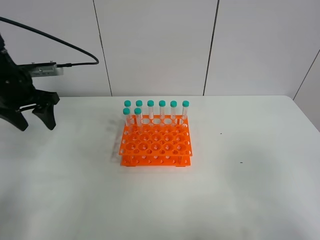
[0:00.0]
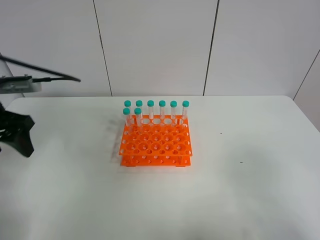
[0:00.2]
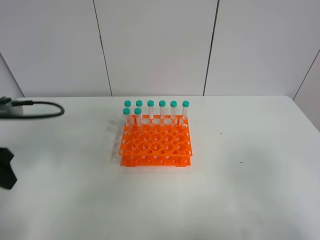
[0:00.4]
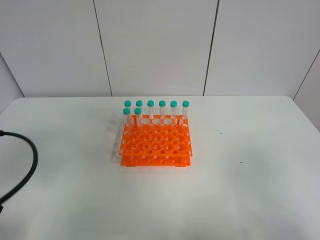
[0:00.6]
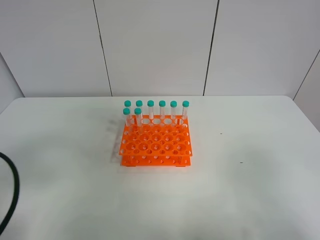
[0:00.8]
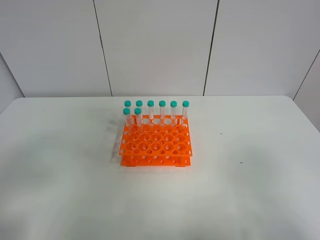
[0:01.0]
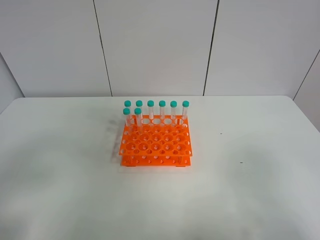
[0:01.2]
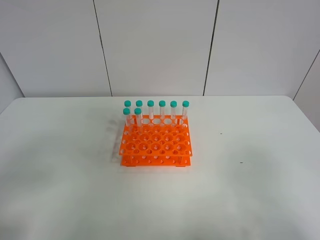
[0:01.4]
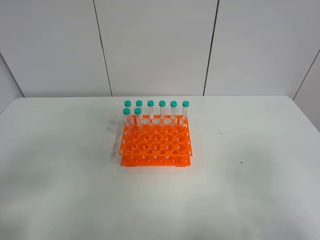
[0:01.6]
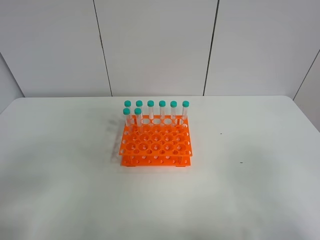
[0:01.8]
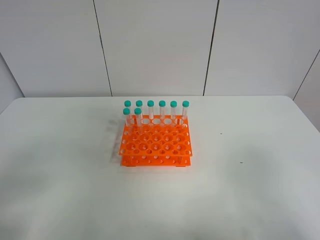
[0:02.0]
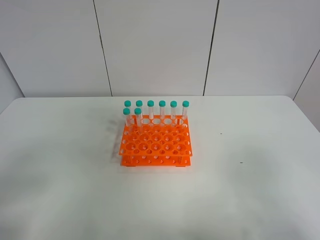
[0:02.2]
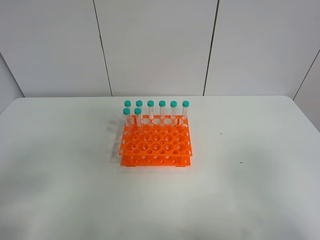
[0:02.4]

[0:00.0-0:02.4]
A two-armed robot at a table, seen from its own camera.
Task of the whole recording: Put the test tube on the table back onto the test tube rack.
0:00.0 to 0:01.2: The left gripper heads backward, covering approximately 30 cm.

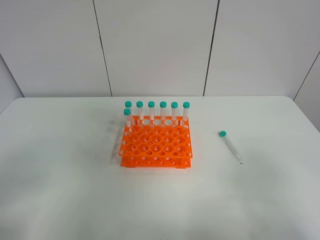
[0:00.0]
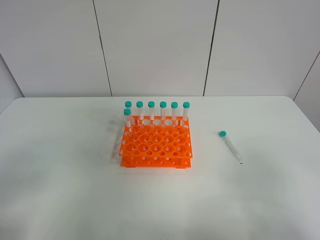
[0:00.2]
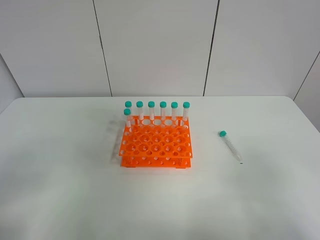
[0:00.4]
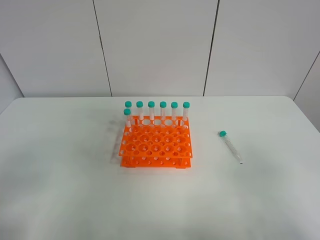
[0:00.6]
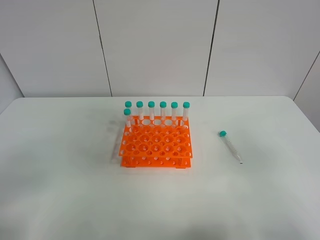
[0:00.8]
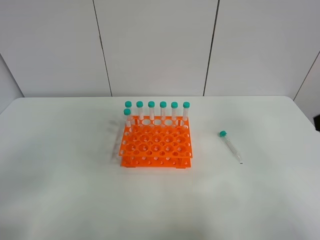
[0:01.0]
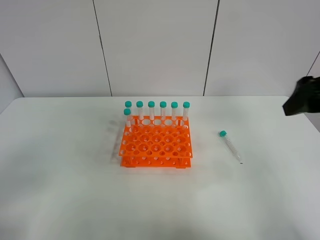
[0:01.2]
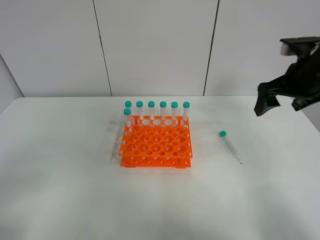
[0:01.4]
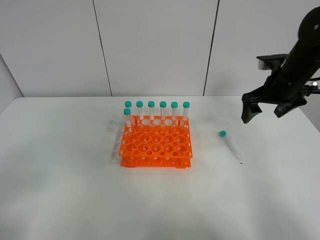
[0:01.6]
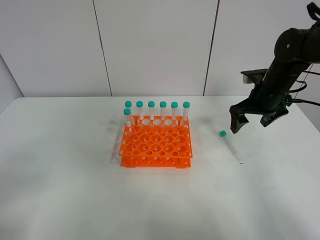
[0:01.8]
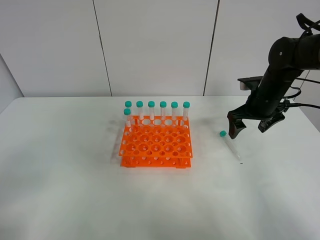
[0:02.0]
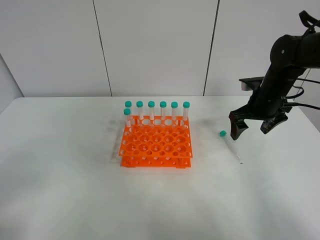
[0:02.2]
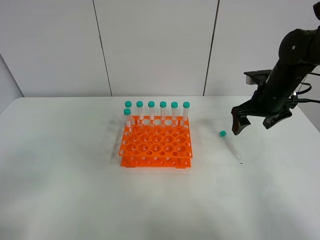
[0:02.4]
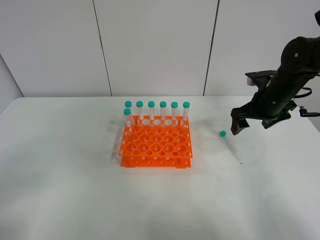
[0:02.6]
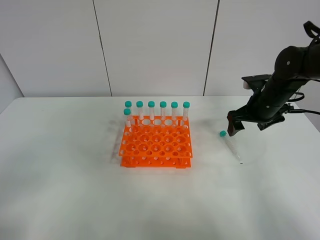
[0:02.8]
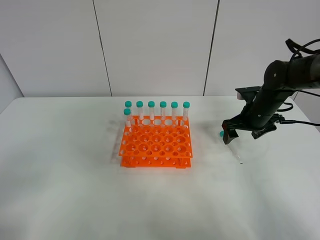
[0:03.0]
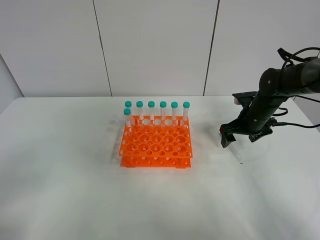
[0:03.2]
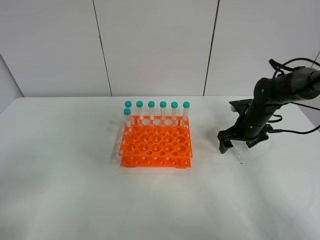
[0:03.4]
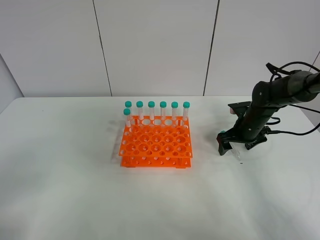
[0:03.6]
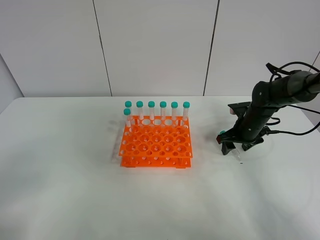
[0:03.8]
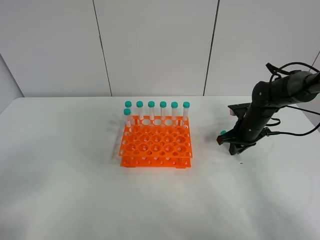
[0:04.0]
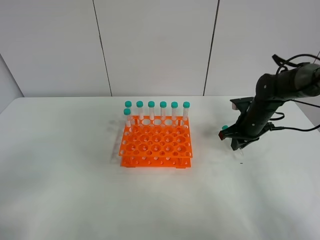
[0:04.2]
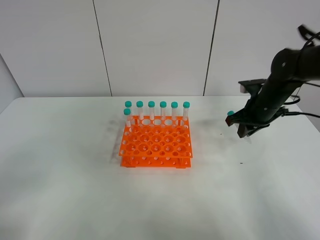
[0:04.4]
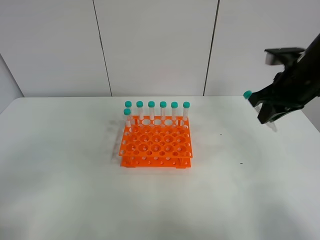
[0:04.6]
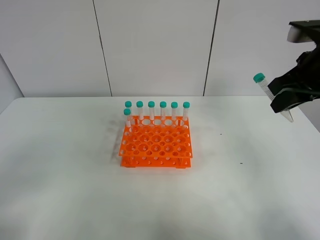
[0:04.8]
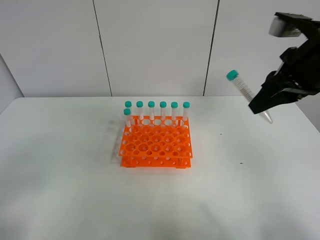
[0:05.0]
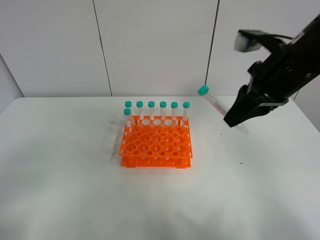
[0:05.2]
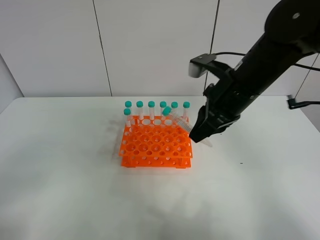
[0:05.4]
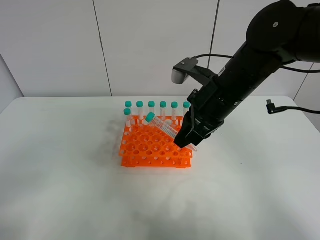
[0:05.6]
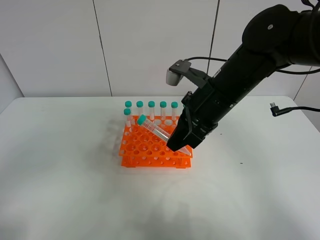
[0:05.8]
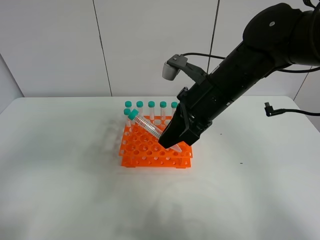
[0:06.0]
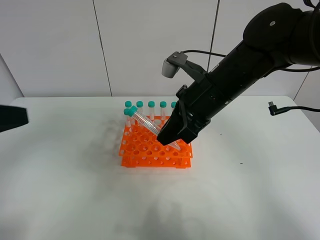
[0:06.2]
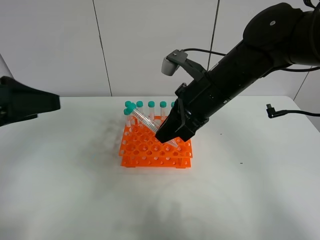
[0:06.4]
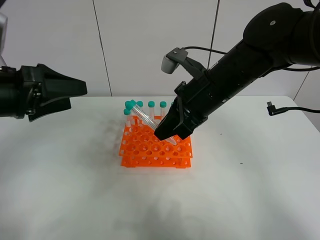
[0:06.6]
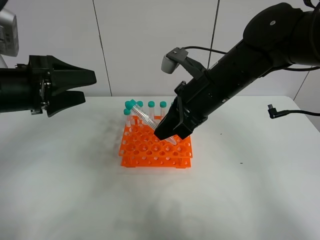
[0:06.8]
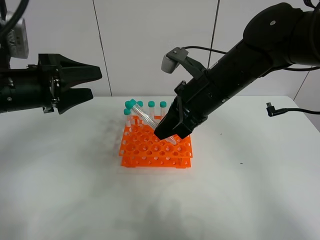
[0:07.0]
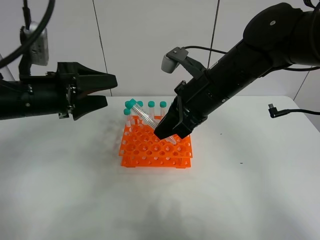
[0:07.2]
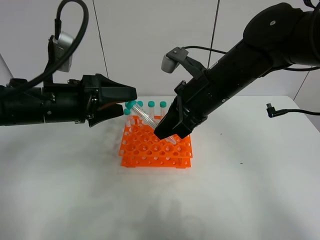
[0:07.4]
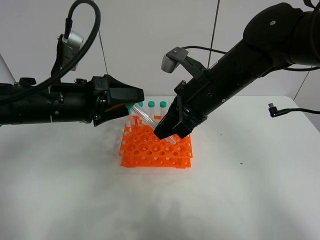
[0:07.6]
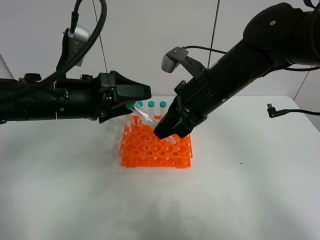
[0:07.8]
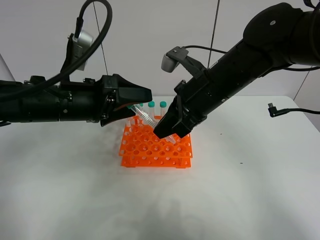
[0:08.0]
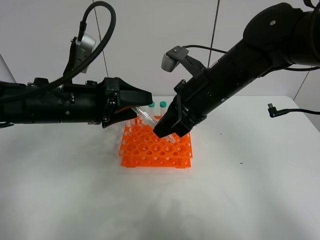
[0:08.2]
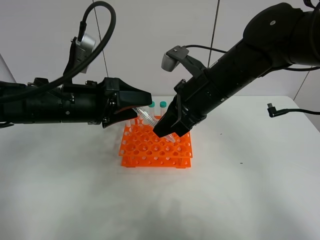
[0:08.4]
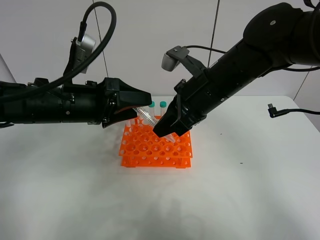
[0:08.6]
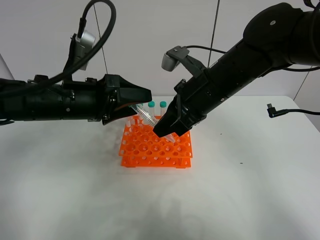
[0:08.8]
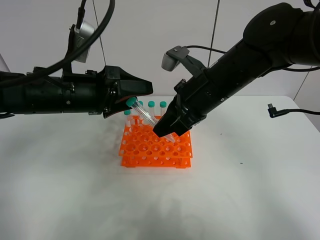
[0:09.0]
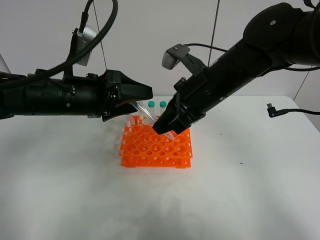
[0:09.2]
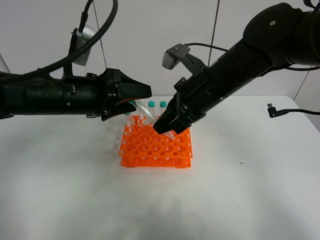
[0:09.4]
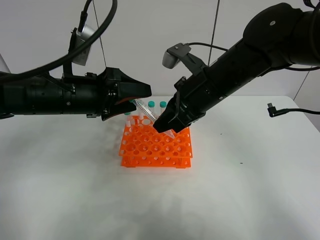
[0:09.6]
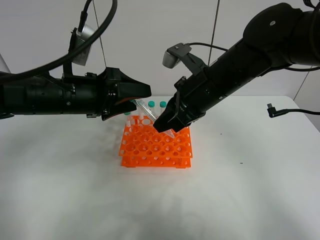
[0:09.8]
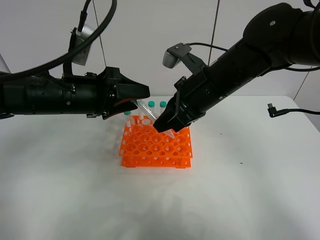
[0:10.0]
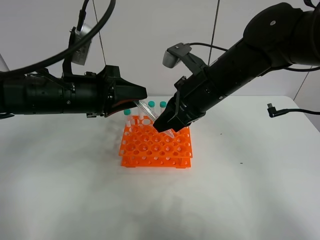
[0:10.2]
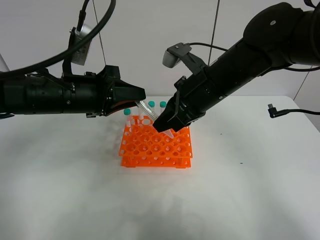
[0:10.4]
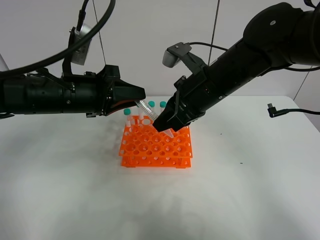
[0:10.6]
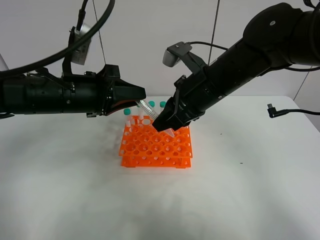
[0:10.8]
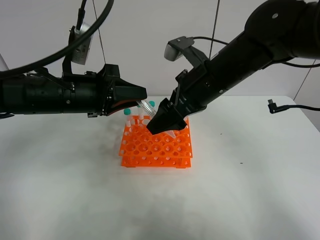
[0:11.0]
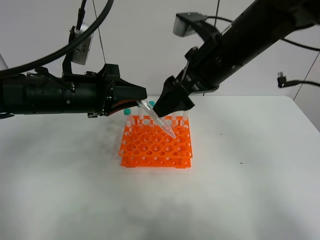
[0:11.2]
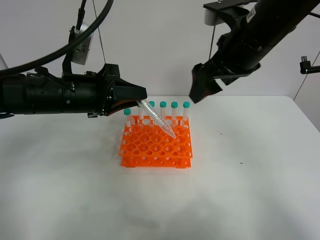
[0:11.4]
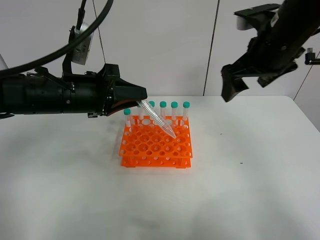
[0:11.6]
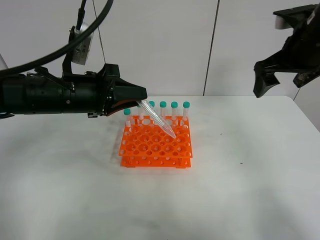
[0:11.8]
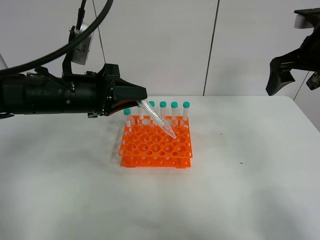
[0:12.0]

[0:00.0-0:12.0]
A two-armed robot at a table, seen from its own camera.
Task of the whole recording: Put the test tube on the table back onto the test tube rack.
Step, 0:00.0 to 0:04.0: Pick up the test tube with the right gripper.
Step, 0:04.2 to 0:10.8: Move the test tube from the right gripper to the left gripper.
0:00.0 to 0:01.6: The right gripper shifts approximately 35 cm forward.
0:01.6 to 0:03.0: The right gripper travels downward by roughly 10 cm.
0:03.0 to 0:04.4: The right gripper shifts approximately 5 cm upward, and closes its fingers.
0:04.4 to 0:06.0: The right gripper heads to the left, backward and upward, covering some 20 cm, while the left gripper goes approximately 5 cm forward.
0:06.0 to 0:07.6: The left gripper shifts some 25 cm forward and to the right.
0:07.6 to 0:09.0: The grippers stay close to where they were, moving slightly.
0:09.0 to 0:10.4: The left gripper closes up.
0:10.4 to 0:12.0: The right gripper heads to the right, covering approximately 20 cm, and opens up.

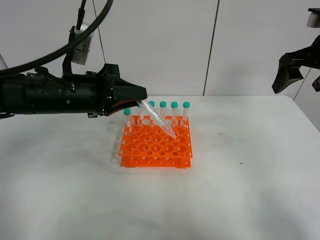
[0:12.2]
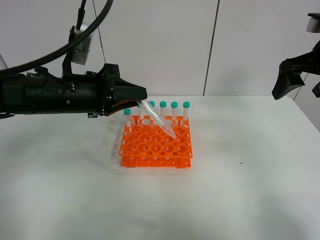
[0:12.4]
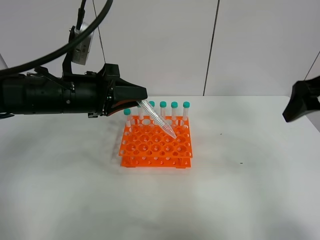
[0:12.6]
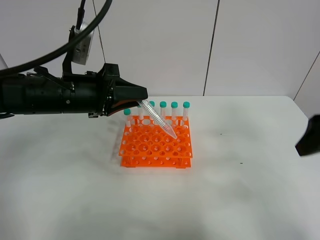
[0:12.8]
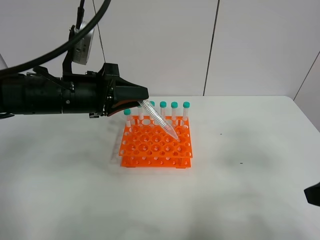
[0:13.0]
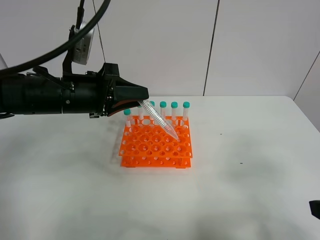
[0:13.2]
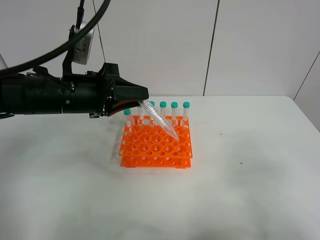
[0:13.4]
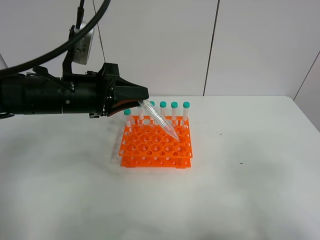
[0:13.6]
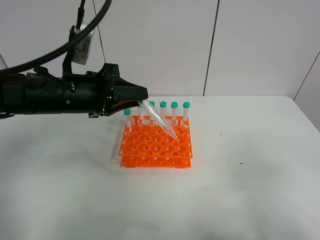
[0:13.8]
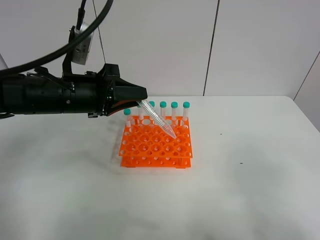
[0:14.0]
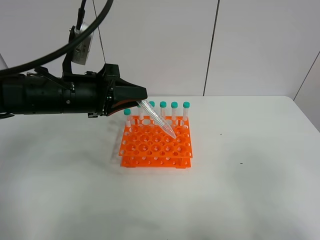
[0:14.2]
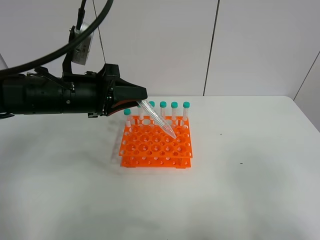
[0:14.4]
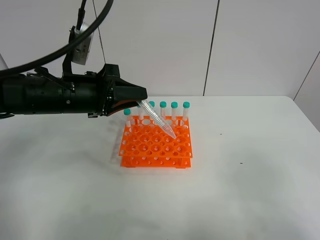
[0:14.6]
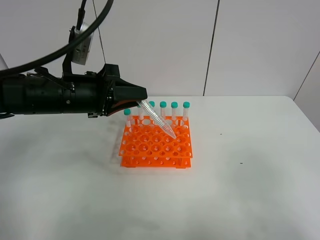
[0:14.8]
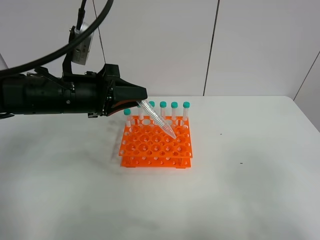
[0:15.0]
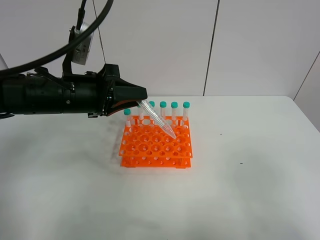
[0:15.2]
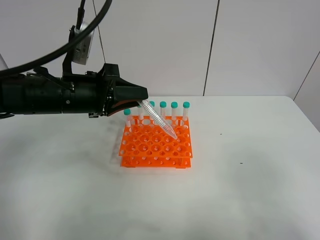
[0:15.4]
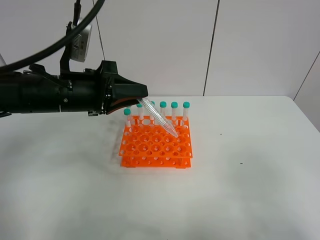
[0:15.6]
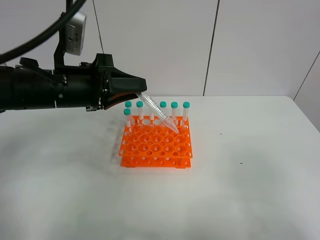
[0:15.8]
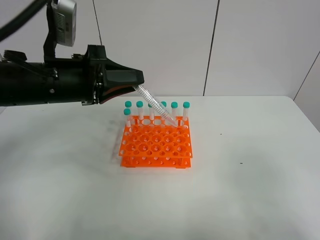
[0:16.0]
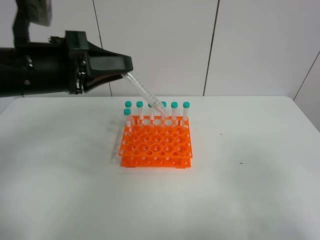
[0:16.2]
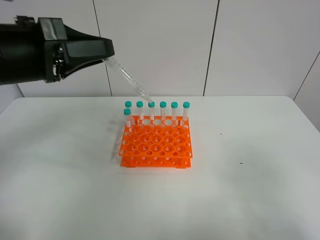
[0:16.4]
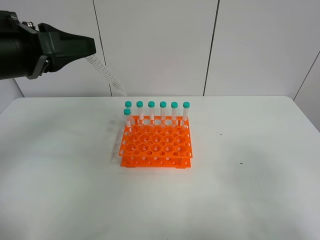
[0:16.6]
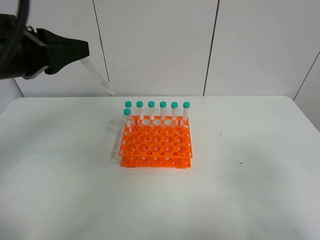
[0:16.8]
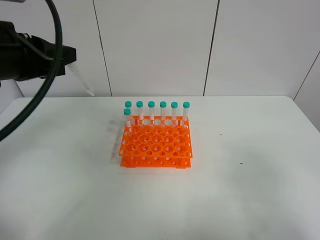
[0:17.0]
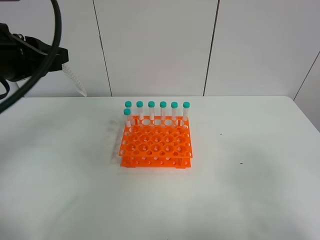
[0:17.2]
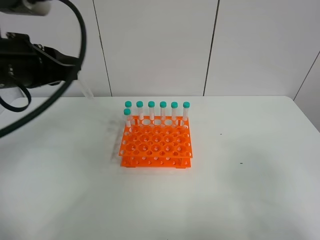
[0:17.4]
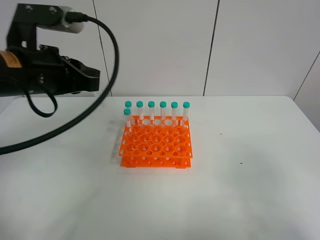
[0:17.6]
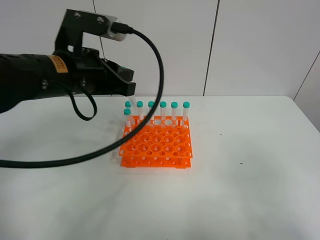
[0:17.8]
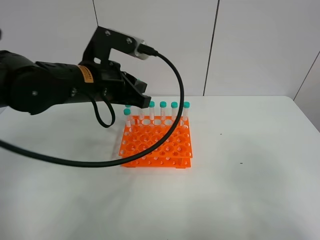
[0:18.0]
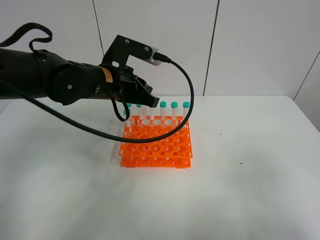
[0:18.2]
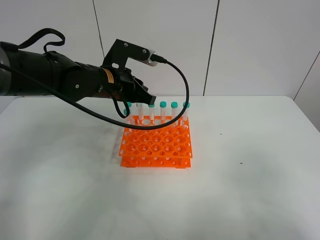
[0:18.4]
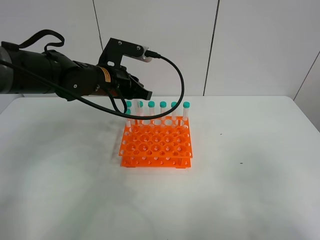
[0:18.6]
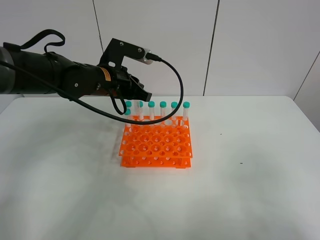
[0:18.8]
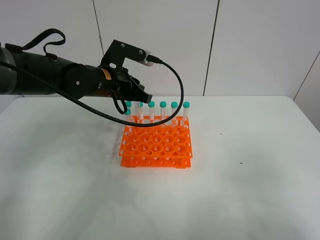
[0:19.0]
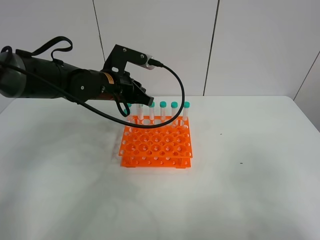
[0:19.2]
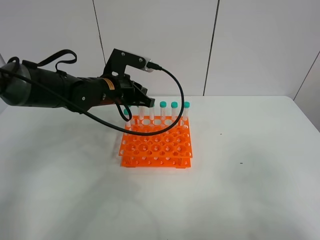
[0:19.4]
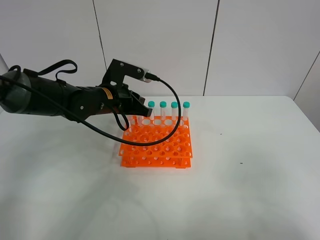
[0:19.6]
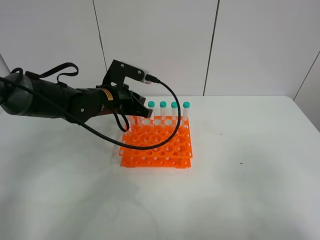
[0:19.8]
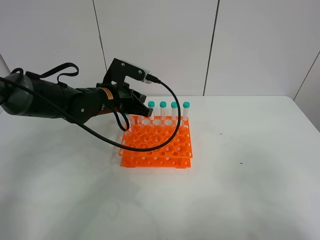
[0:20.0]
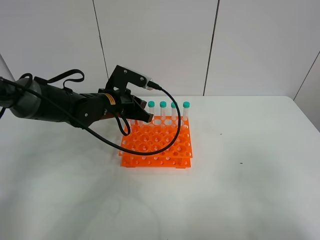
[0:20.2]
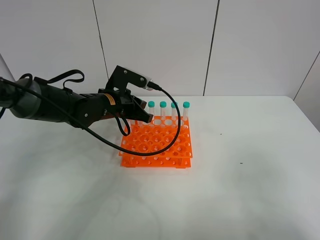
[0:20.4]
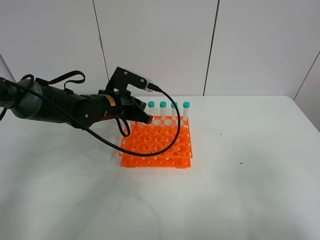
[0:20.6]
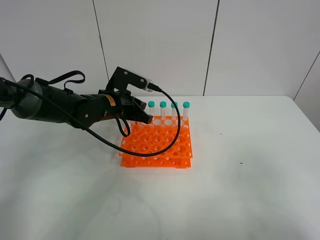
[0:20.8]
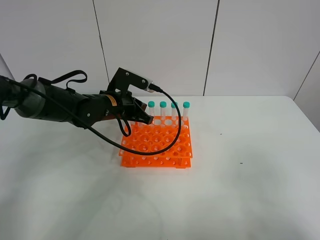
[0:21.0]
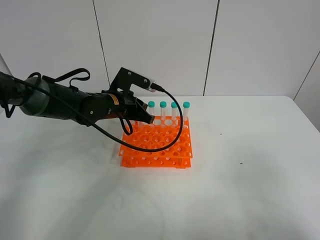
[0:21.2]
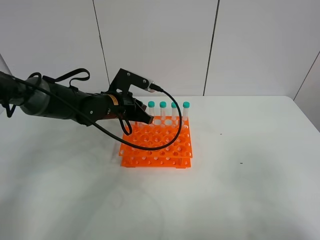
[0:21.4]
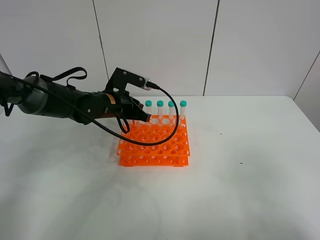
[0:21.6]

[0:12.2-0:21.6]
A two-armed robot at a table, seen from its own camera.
Task of the whole recording: Put the test tube on the table back onto the test tube rack.
0:12.2 to 0:13.8: The right gripper shifts approximately 30 cm backward.
0:15.4 to 0:17.0: The left gripper moves upward and to the left, about 10 cm.
0:17.0 to 0:18.4: The left gripper moves to the right, forward and downward, approximately 20 cm.
0:18.4 to 0:20.0: The left gripper ends up approximately 5 cm from where it was.
0:20.0 to 0:21.6: The grippers make only small movements.
